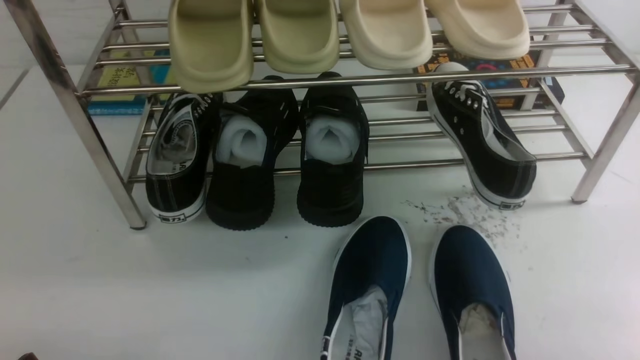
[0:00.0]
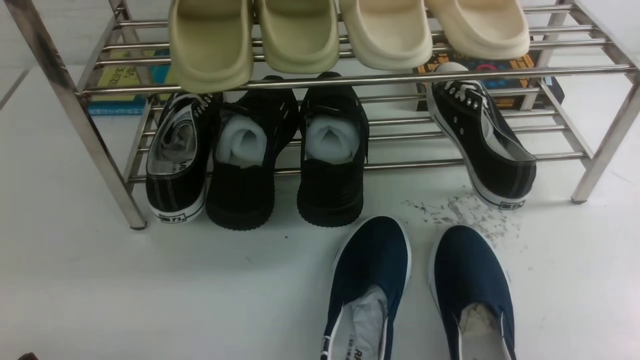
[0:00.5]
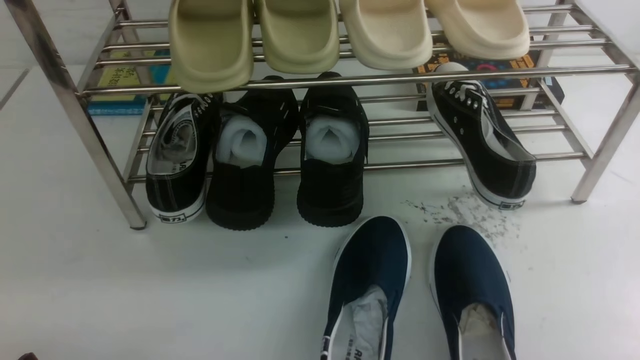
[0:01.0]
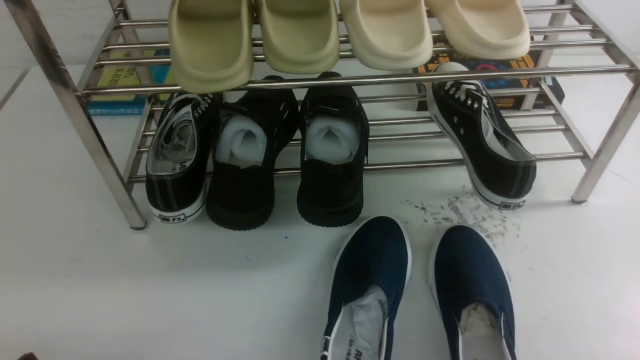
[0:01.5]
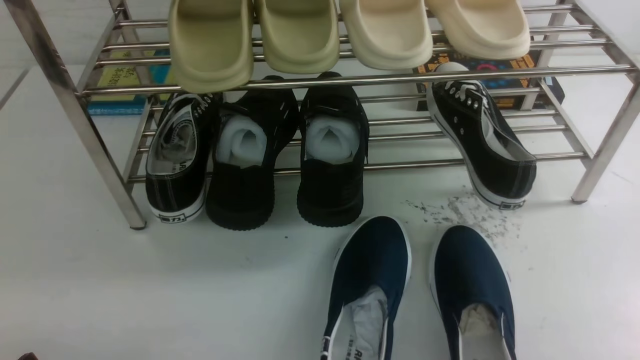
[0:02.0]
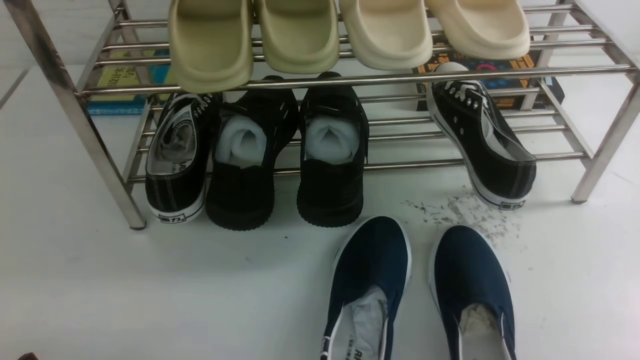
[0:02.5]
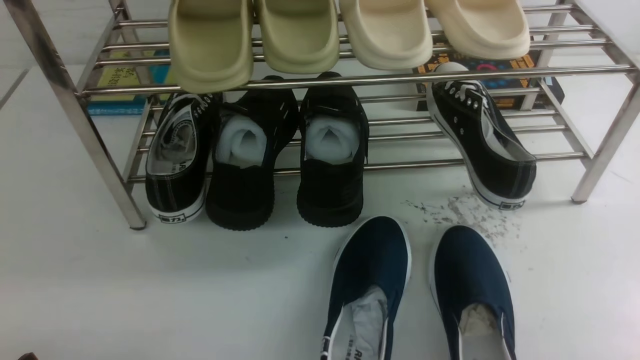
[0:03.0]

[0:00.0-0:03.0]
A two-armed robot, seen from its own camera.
0:01.5 to 0:03.0: Both grippers stay about where they are.
